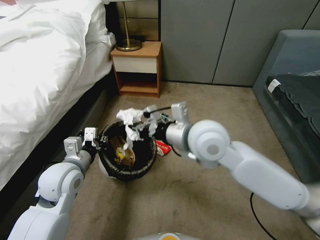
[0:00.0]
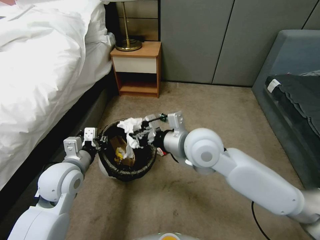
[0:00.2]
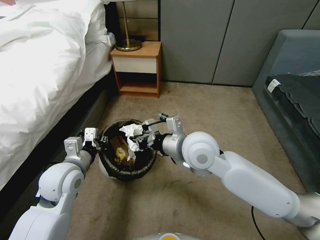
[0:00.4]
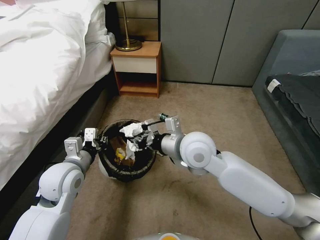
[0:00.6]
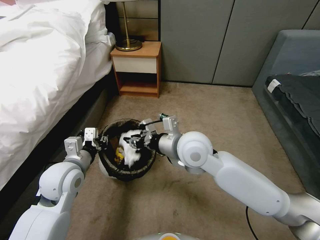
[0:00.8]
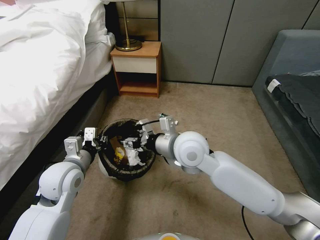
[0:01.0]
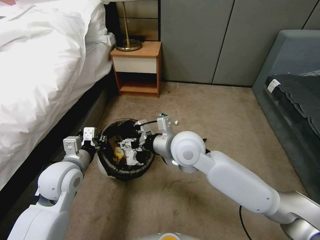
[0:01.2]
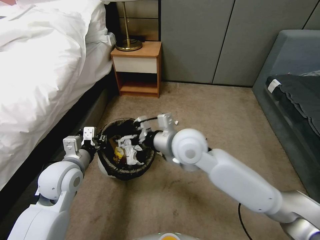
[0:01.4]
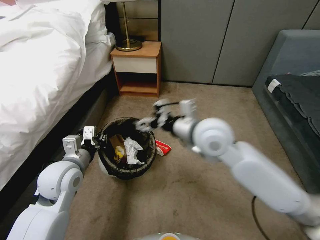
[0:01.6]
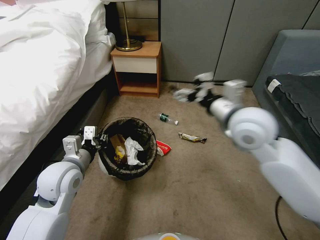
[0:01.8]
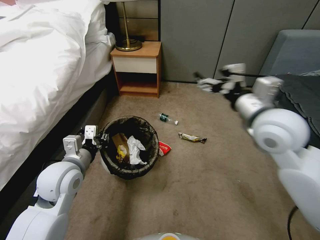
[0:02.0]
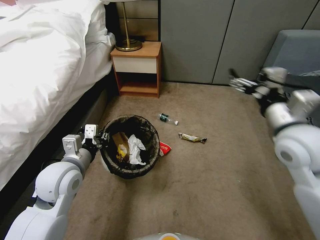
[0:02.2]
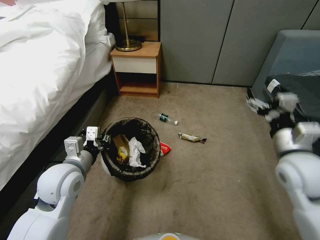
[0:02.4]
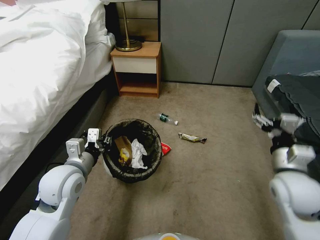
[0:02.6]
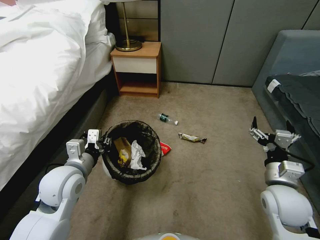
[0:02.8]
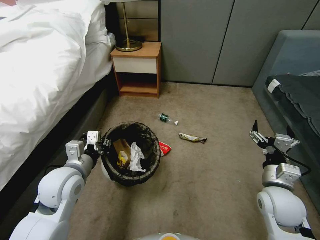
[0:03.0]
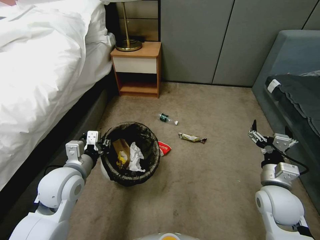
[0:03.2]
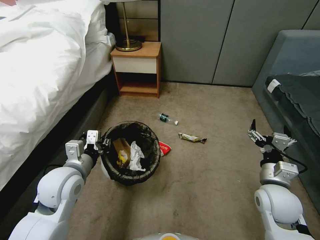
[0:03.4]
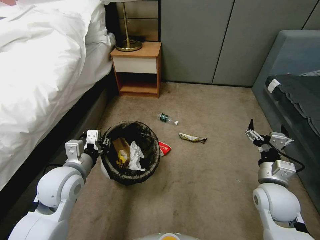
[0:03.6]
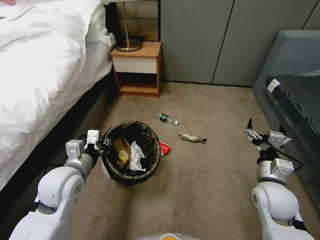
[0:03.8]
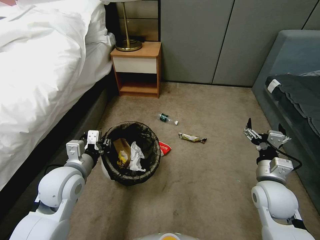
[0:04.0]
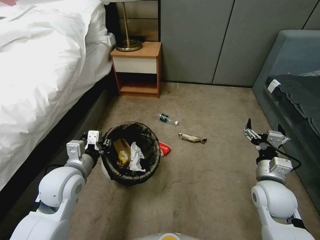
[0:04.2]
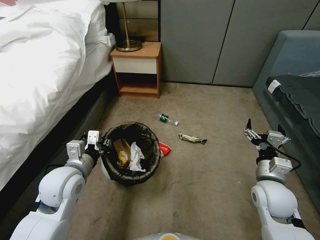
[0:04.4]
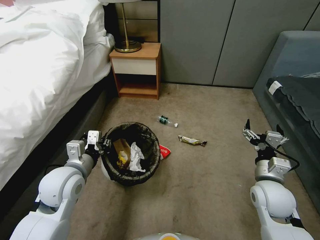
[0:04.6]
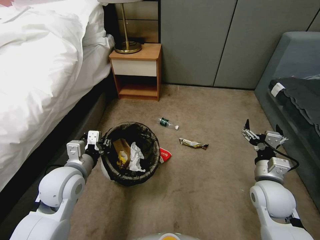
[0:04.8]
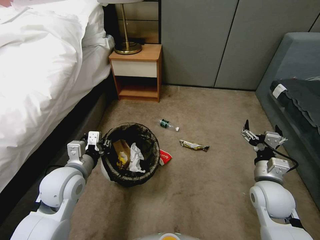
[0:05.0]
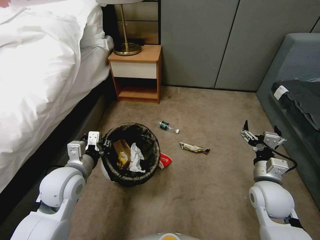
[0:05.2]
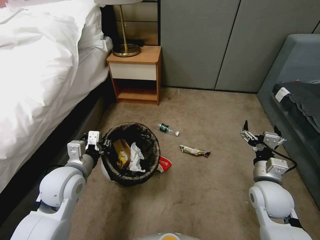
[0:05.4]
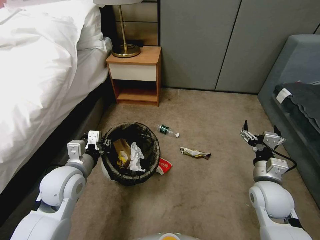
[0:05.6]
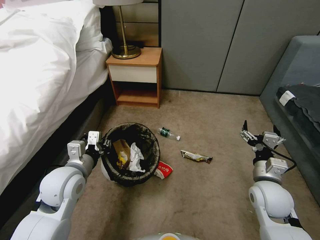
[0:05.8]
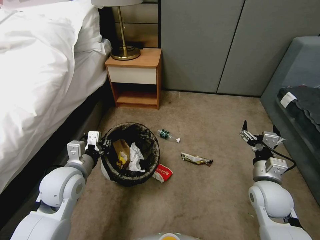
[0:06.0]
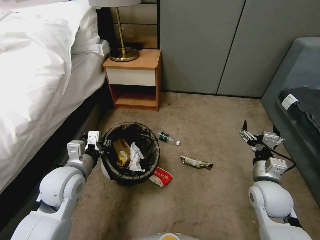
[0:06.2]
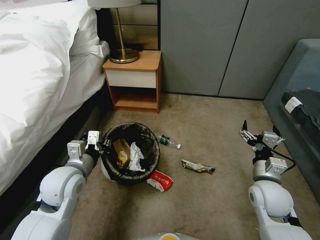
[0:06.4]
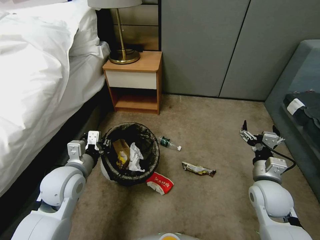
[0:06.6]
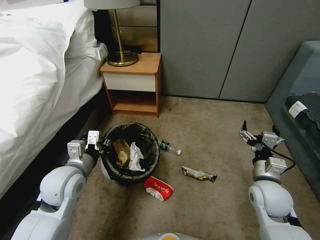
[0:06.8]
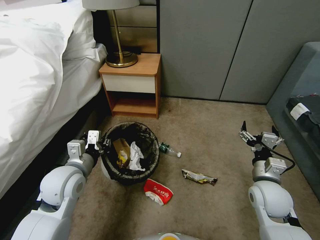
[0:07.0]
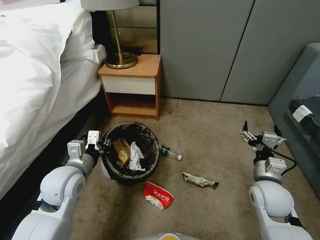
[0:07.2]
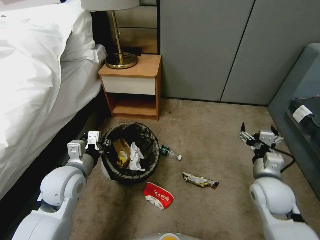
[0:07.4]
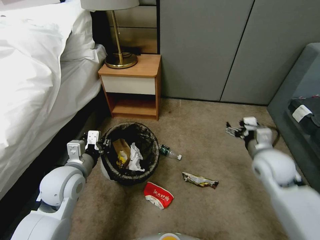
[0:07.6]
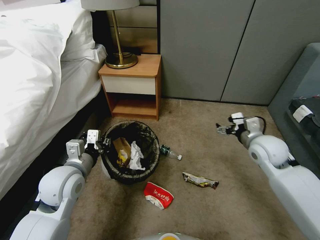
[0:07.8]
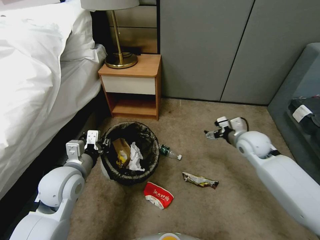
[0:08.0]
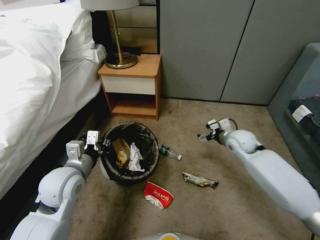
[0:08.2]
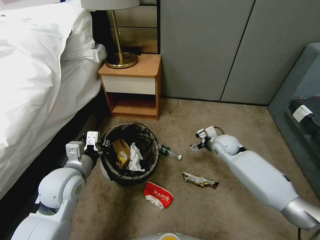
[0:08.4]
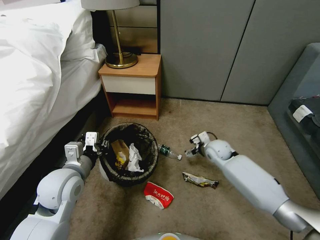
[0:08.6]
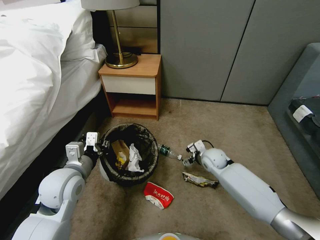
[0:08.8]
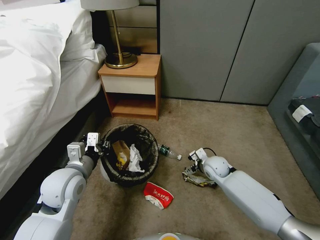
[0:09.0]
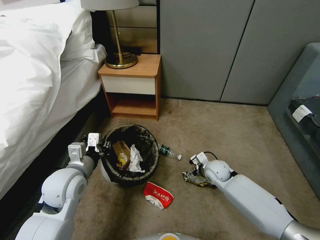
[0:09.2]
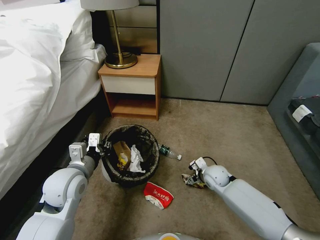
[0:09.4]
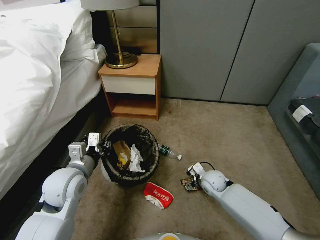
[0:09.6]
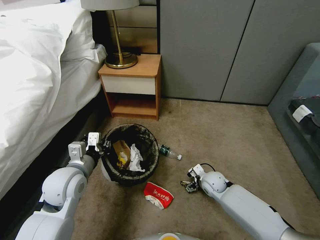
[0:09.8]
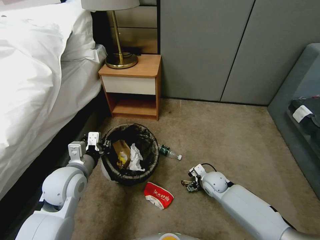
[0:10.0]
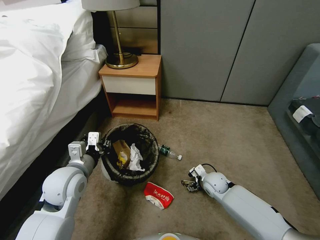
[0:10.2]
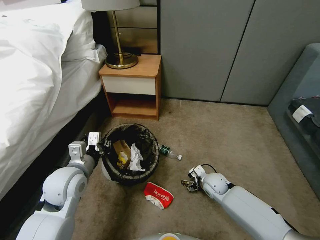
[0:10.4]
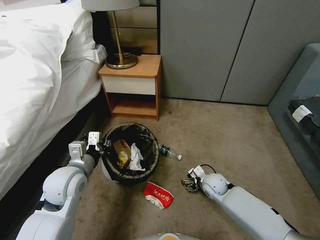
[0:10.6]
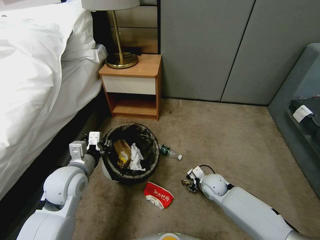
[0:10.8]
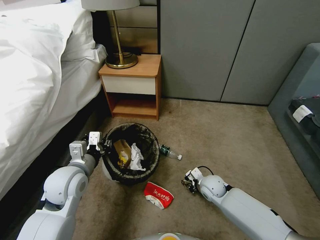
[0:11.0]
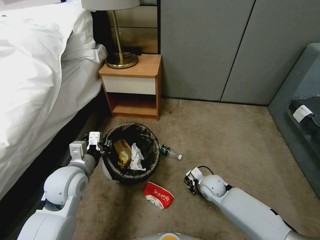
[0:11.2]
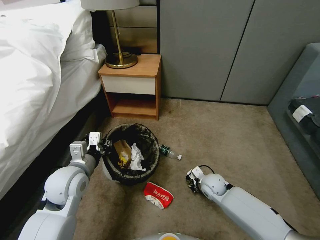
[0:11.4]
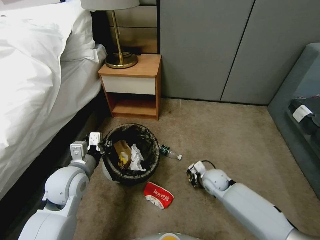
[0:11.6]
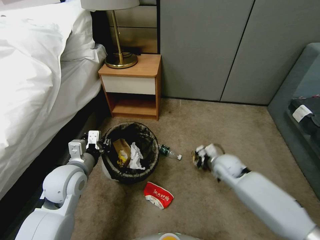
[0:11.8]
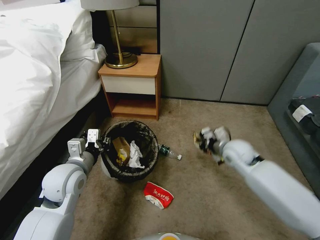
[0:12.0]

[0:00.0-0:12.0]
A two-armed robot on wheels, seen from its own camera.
Task of the whole recording: Pick up the trash bin, then pick up the garbage from the floor and place it into the trash bin.
0:00.0 to 0:01.6: The right gripper opens up.
0:01.6 to 0:03.0: The right gripper shifts roughly 30 cm downward, to the right and backward.
0:03.0 to 0:04.4: The grippers make only small movements.
0:04.4 to 0:06.0: Both grippers stay put.
0:06.0 to 0:07.6: The right gripper travels upward by some 5 cm.
0:07.6 to 0:09.0: The right gripper shifts approximately 20 cm downward, forward and to the left.
0:09.0 to 0:10.4: The right gripper travels downward by some 5 cm.
0:10.4 to 0:12.0: The right gripper shifts approximately 15 cm upward, and closes up.

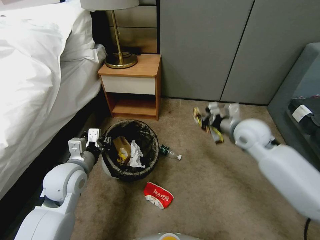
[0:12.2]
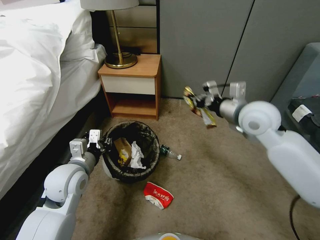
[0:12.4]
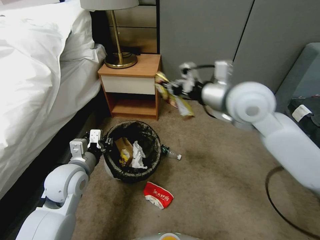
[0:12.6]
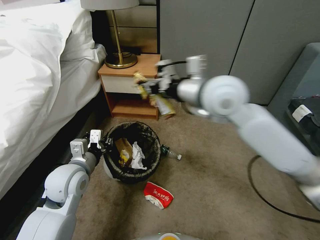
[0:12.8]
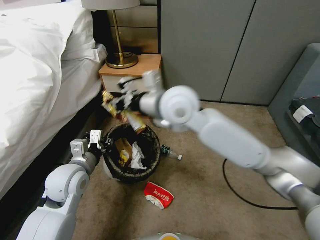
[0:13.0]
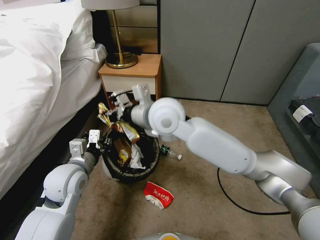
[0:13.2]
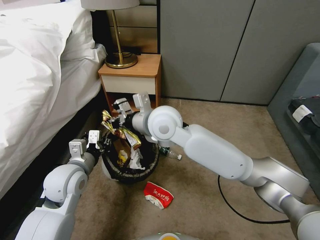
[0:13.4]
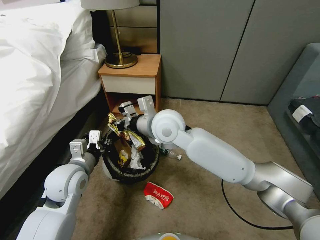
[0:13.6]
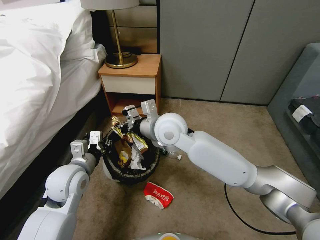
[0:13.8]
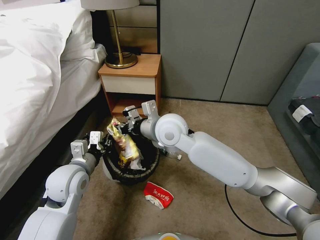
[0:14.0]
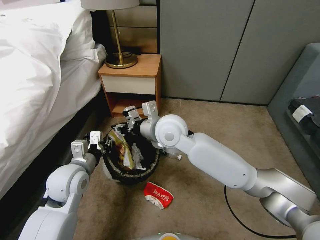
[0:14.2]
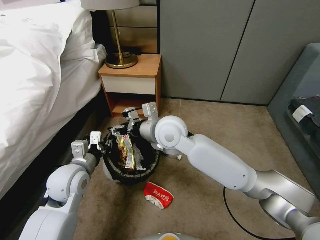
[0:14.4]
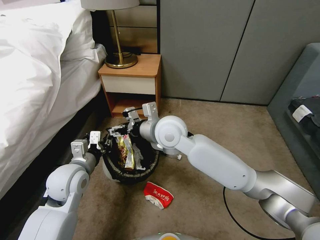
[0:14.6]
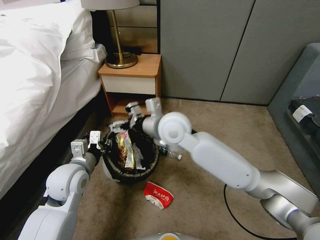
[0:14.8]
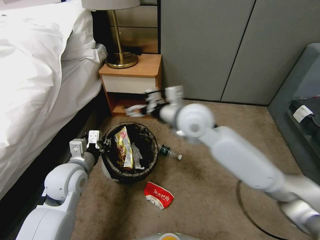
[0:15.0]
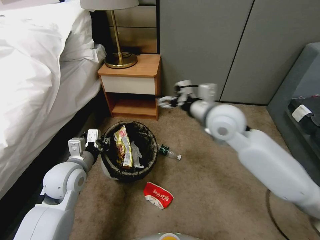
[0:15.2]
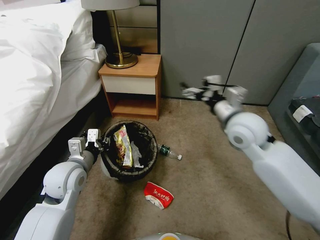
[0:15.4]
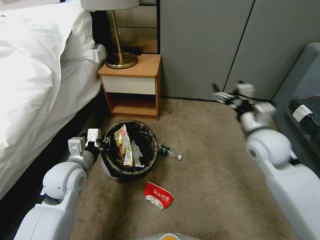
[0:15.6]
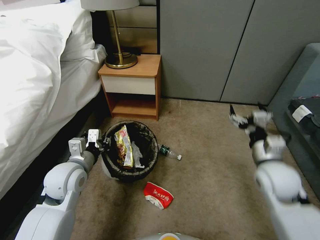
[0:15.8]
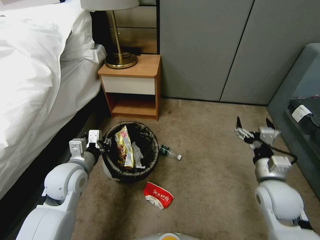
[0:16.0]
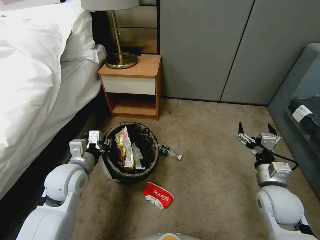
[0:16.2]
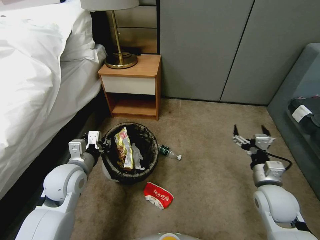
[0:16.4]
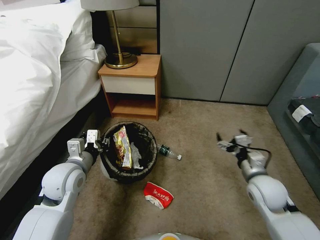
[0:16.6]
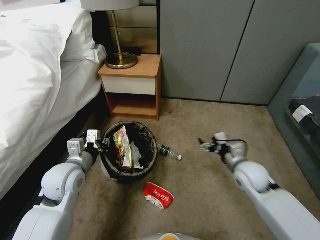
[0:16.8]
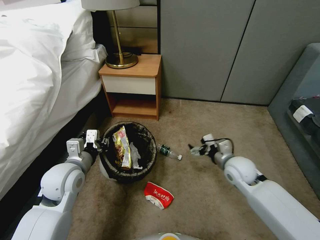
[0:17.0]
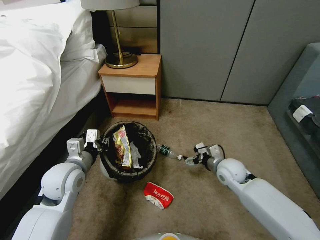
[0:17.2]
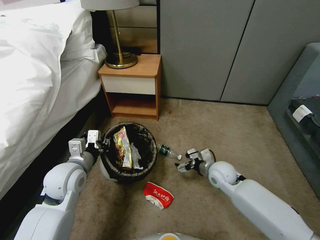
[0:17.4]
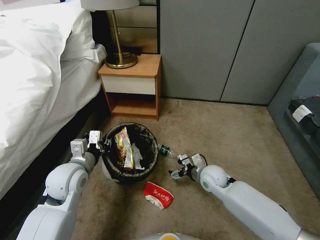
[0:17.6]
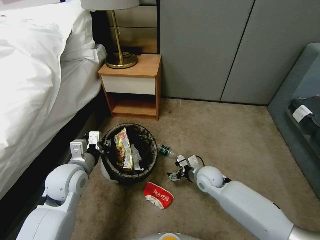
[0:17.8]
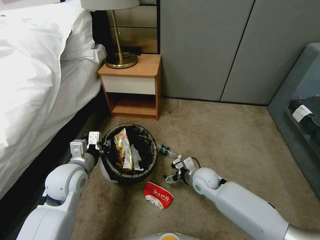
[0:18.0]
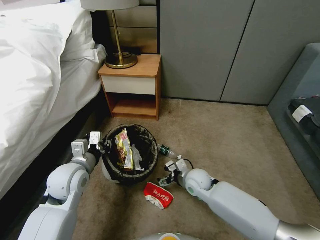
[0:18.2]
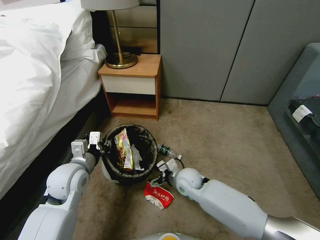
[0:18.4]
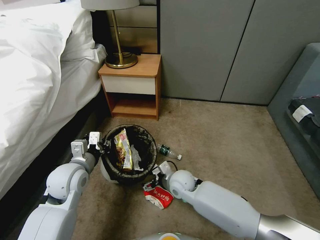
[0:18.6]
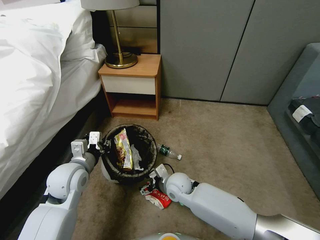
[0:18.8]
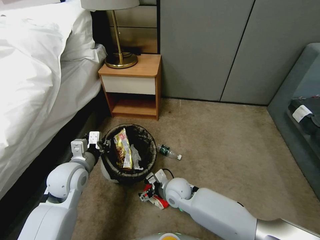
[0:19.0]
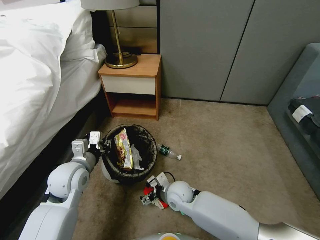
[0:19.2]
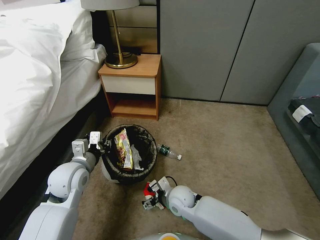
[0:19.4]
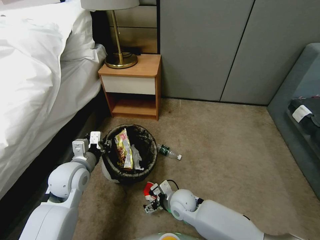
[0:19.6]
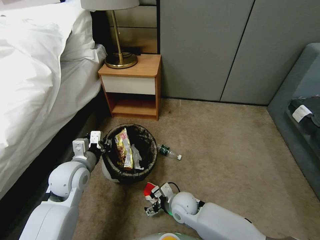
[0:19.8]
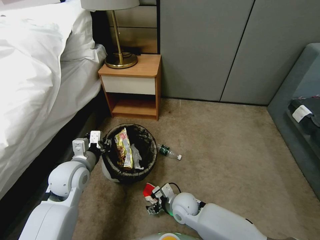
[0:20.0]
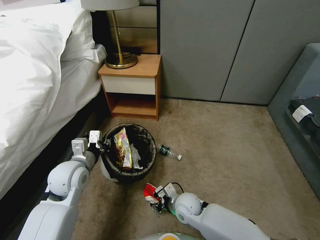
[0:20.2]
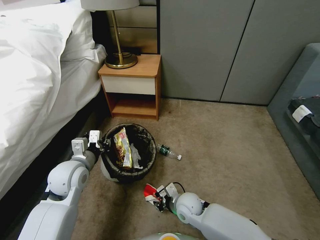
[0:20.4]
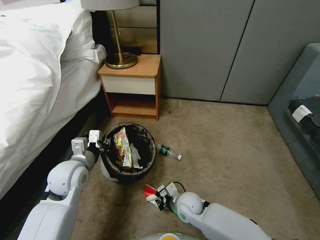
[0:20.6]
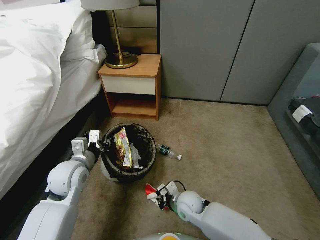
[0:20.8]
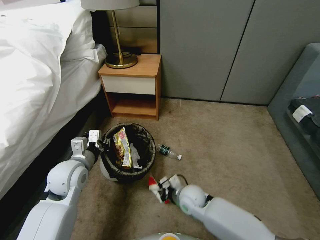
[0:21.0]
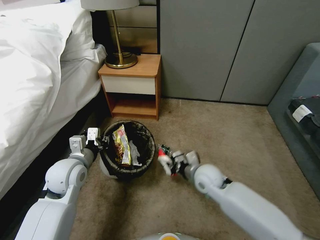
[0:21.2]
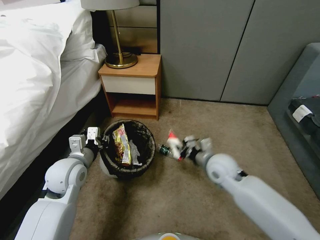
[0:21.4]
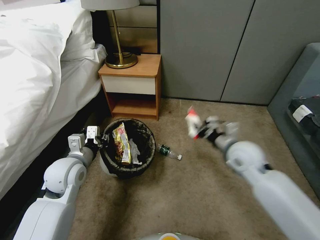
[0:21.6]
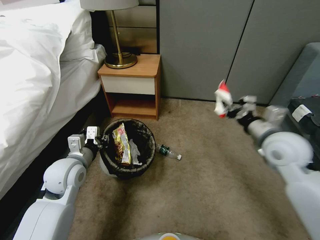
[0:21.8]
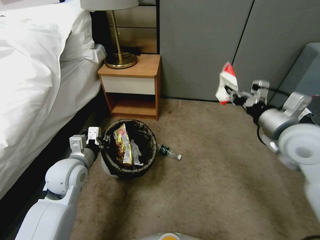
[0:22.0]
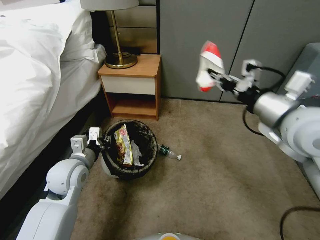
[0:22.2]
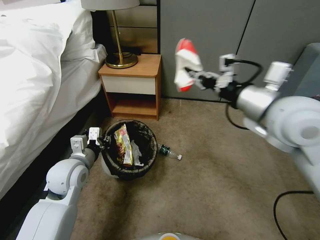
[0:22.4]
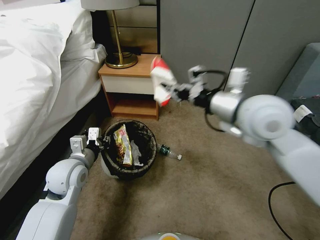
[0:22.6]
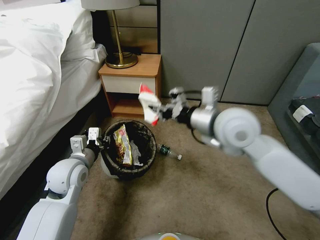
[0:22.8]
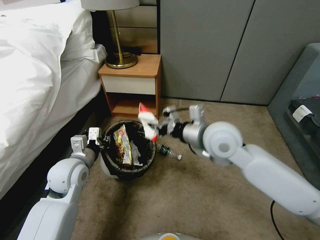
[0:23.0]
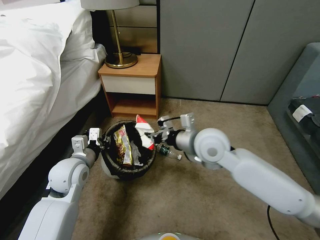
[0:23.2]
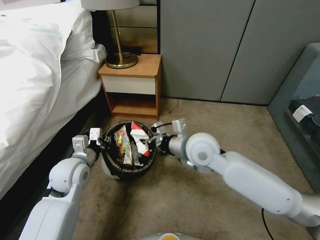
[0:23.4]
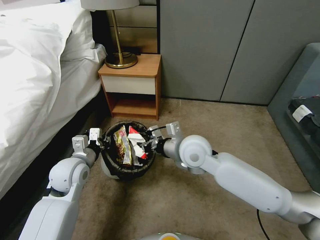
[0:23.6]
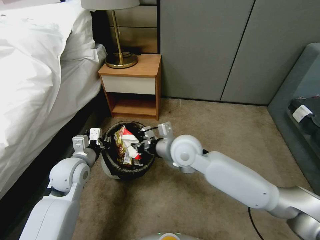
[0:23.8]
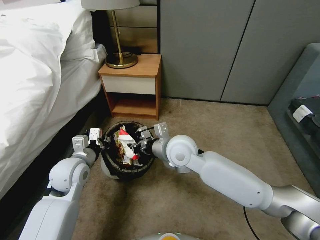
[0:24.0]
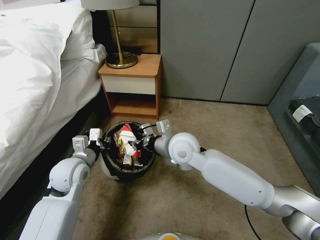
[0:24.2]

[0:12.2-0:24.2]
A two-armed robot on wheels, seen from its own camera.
Task of the whole recording: Pick up the trash bin, then pick up the garbage from the floor and place it into the trash bin.
0:12.2 to 0:13.8: The right gripper goes some 25 cm to the left.
0:13.8 to 0:15.2: The right gripper moves to the right, some 15 cm, and opens up.
0:15.2 to 0:16.6: The right gripper goes some 30 cm downward, to the right and backward.
0:16.6 to 0:18.2: The right gripper heads to the left, downward and forward, covering some 20 cm.
0:18.2 to 0:19.8: The right gripper moves backward and to the left, some 10 cm.
0:19.8 to 0:21.2: The right gripper moves upward, to the right and forward, roughly 10 cm, and closes.
0:21.2 to 0:22.6: The right gripper shifts roughly 35 cm upward.
0:22.6 to 0:24.2: The right gripper is displaced downward and to the left by roughly 20 cm.
